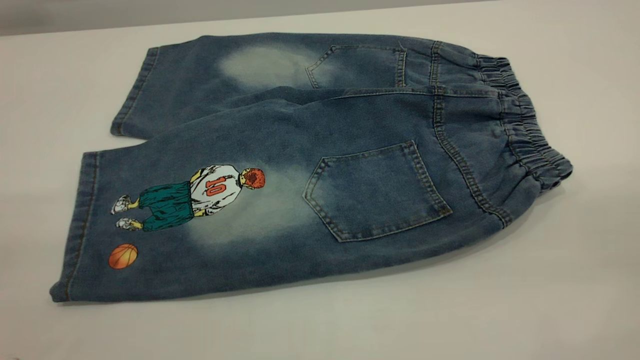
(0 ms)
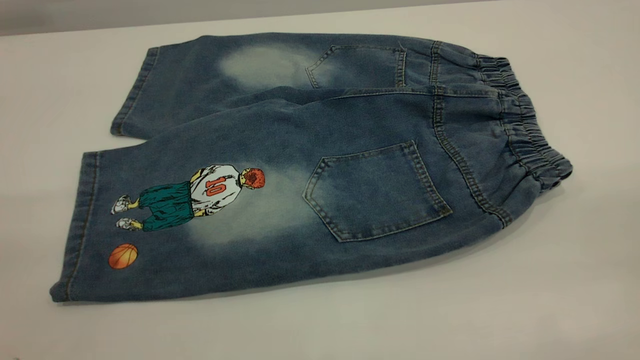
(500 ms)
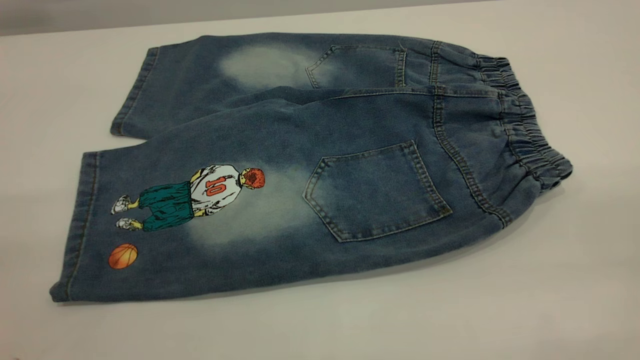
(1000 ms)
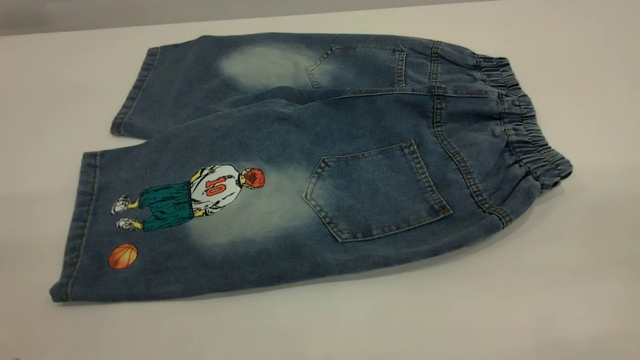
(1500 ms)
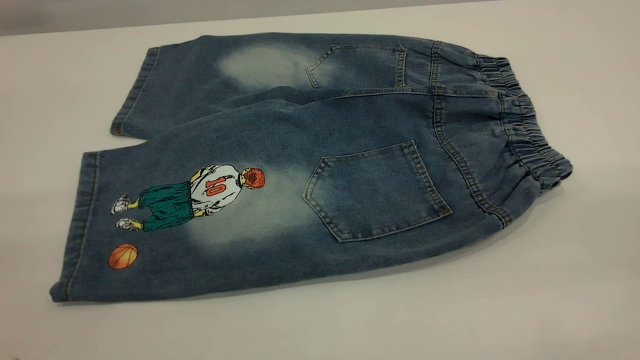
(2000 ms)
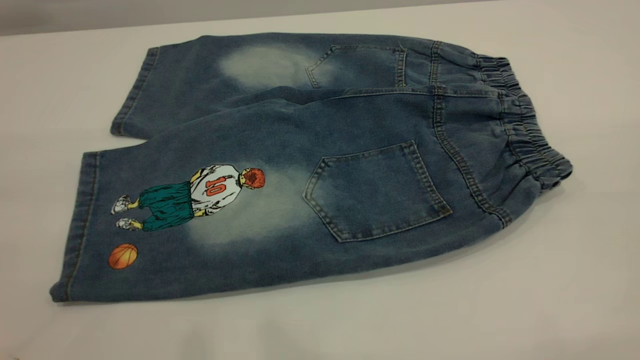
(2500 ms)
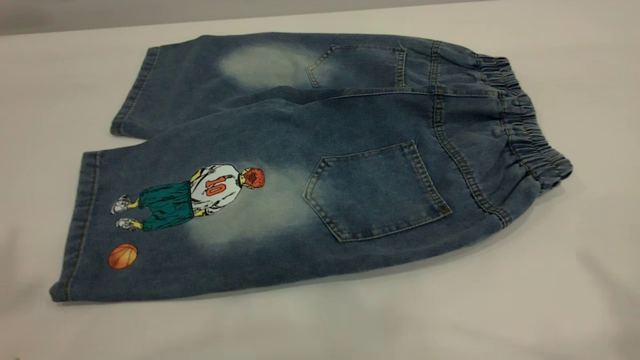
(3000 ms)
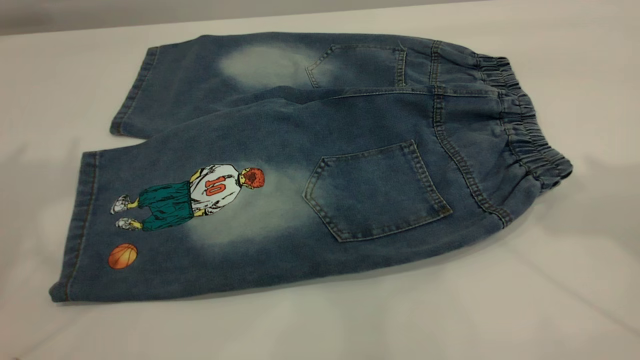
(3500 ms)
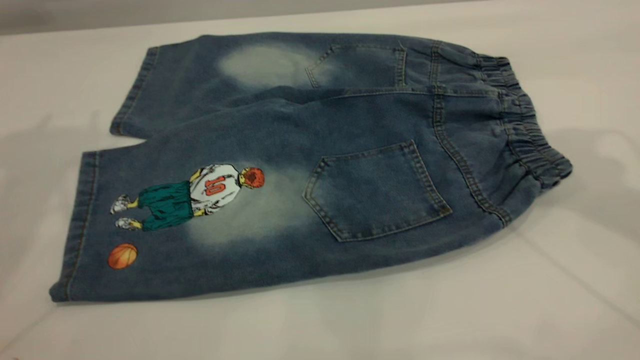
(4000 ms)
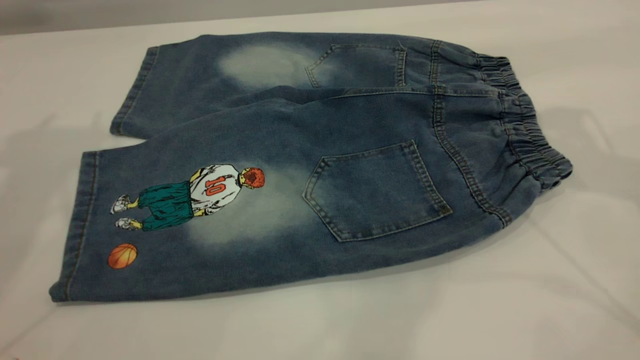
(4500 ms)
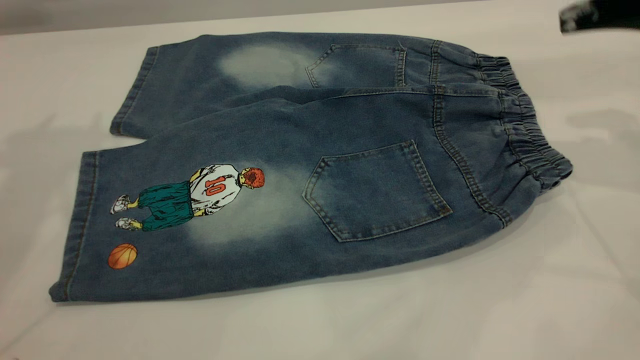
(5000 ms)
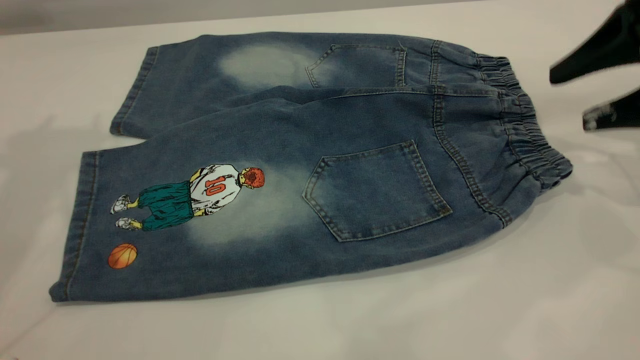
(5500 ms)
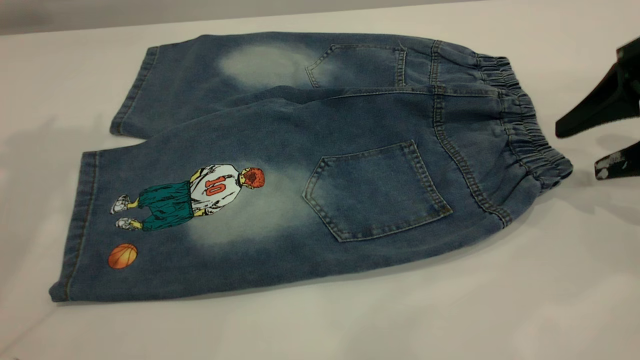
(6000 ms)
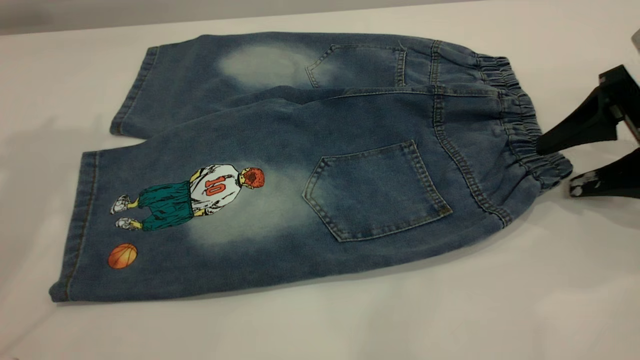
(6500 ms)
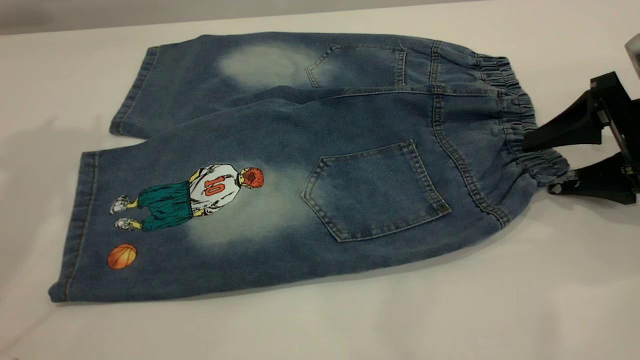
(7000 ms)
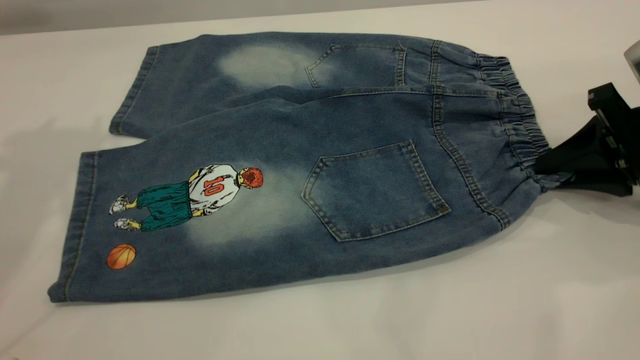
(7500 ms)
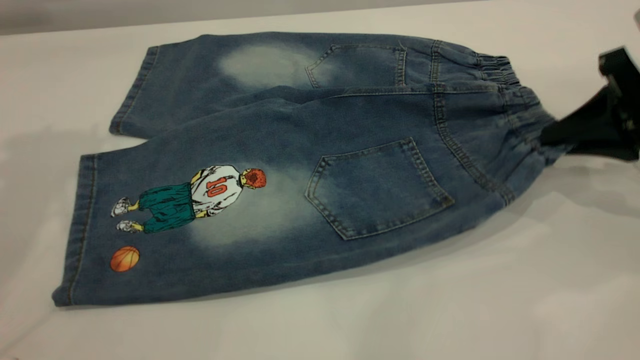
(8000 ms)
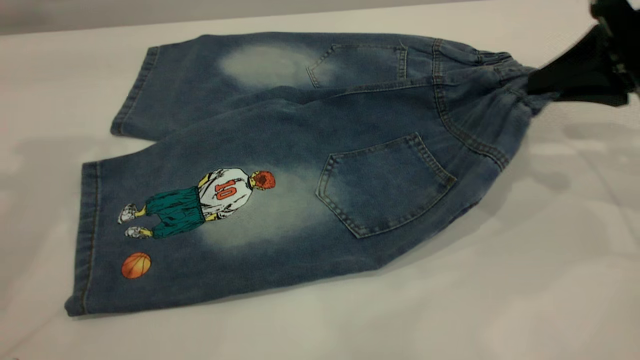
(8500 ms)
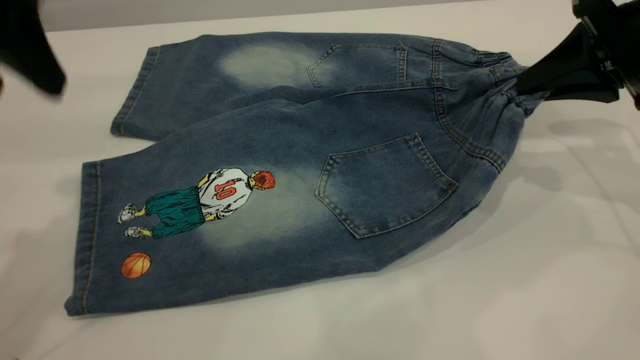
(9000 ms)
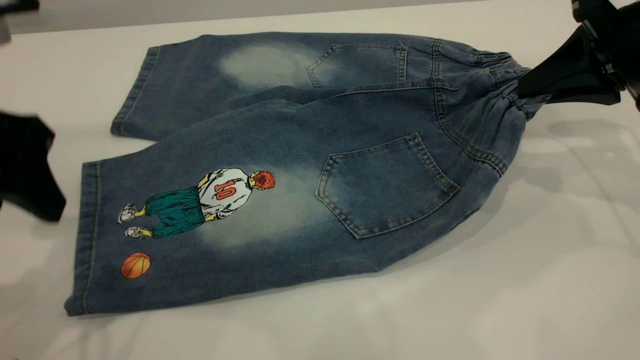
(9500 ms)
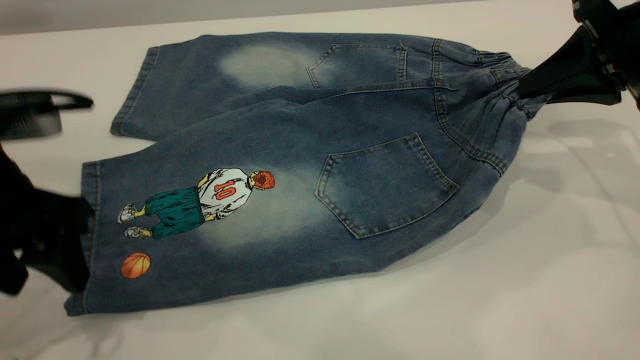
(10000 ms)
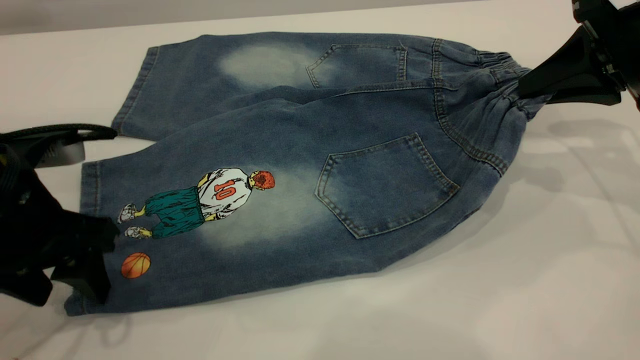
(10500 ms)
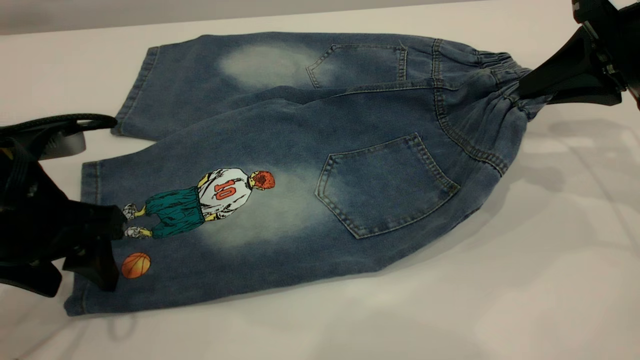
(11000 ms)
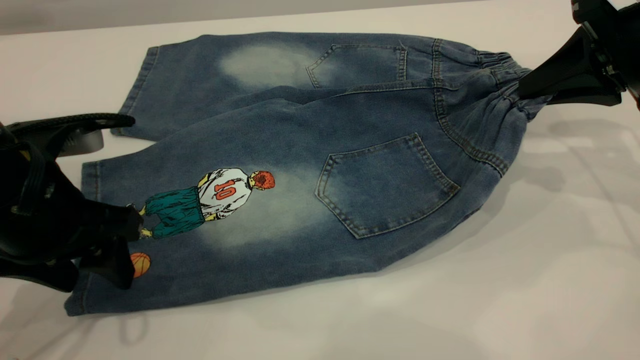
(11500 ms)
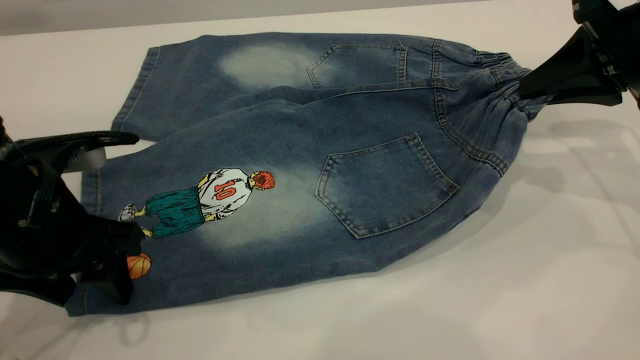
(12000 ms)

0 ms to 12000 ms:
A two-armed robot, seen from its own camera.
0 ms to 2000 ms: Both grippers stay put.
4000 ms to 6000 ms: The right gripper heads downward and to the right, covering some 20 cm.
6000 ms to 8000 ms: The right gripper closes.
8000 ms to 10000 ms: The left gripper heads downward and backward, covering roughly 25 cm. Meanwhile the right gripper moves roughly 5 cm.
10000 ms to 12000 ms: The grippers stay close to where they were, moving slightly.

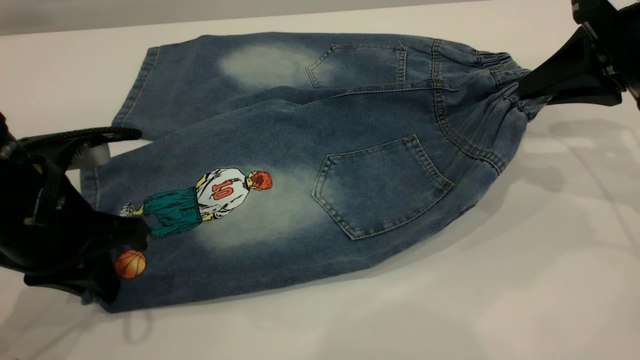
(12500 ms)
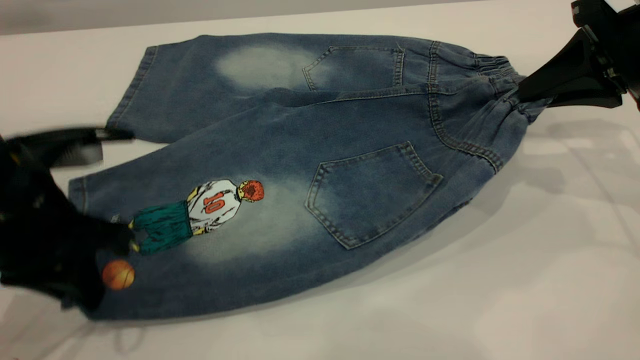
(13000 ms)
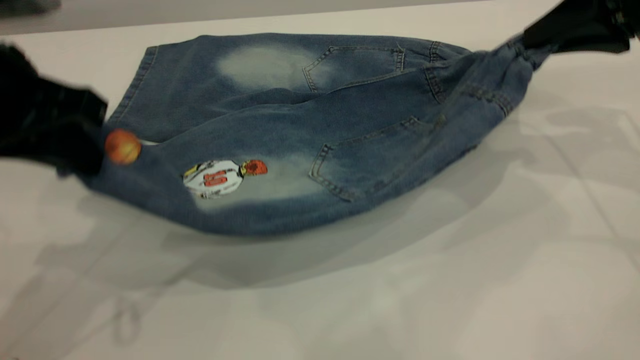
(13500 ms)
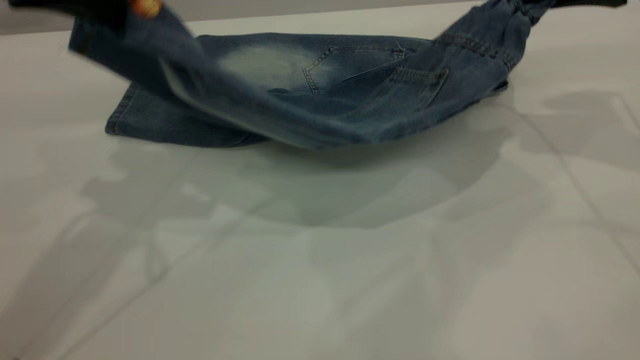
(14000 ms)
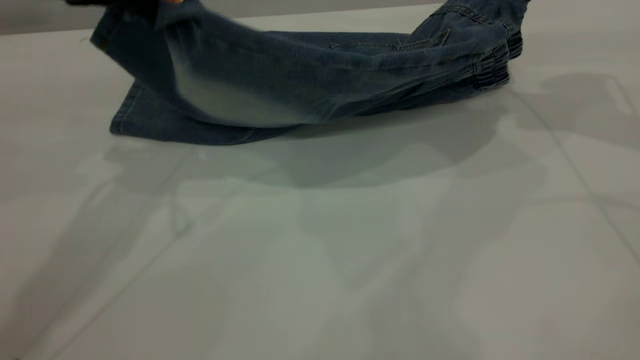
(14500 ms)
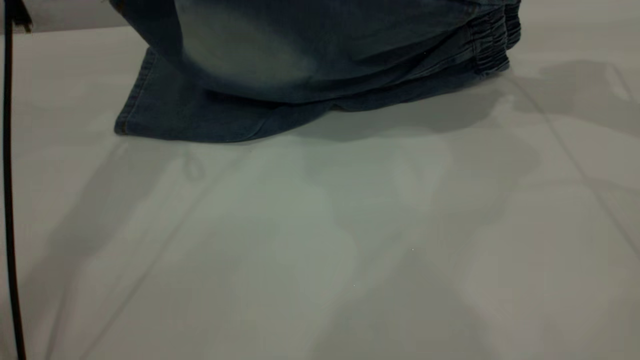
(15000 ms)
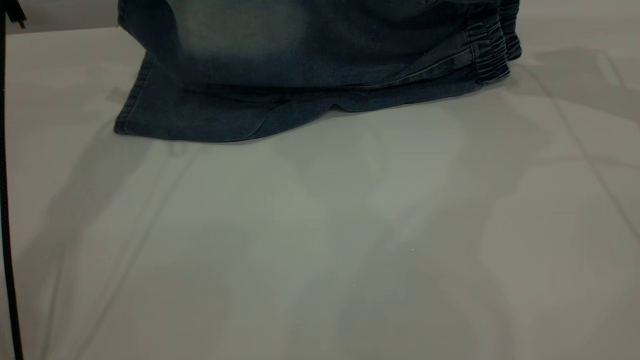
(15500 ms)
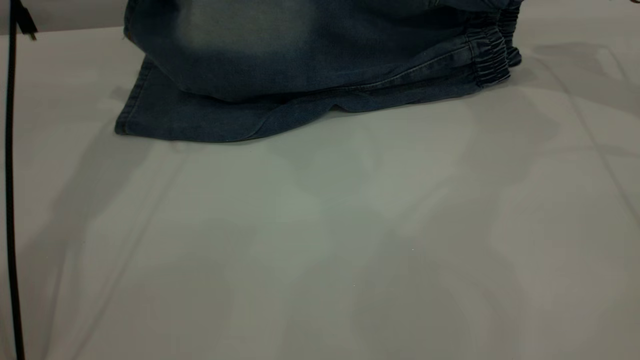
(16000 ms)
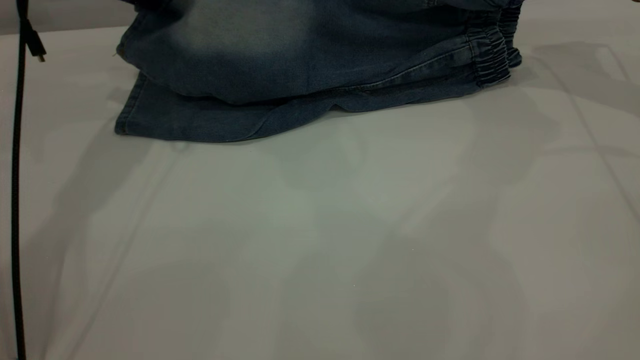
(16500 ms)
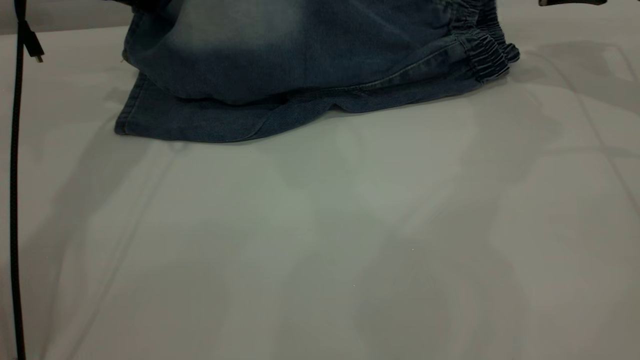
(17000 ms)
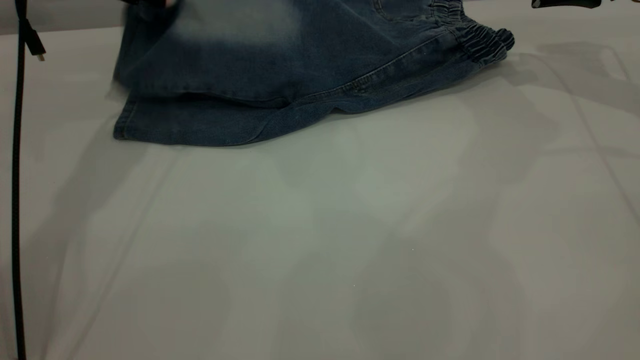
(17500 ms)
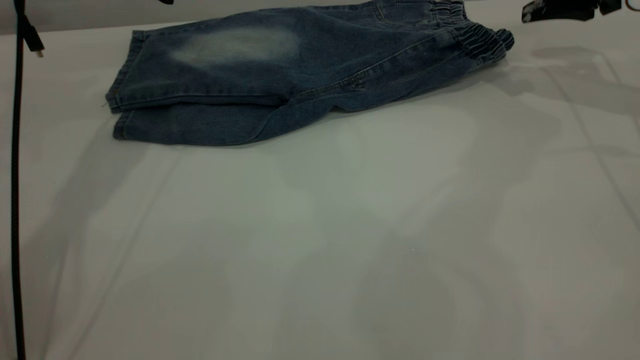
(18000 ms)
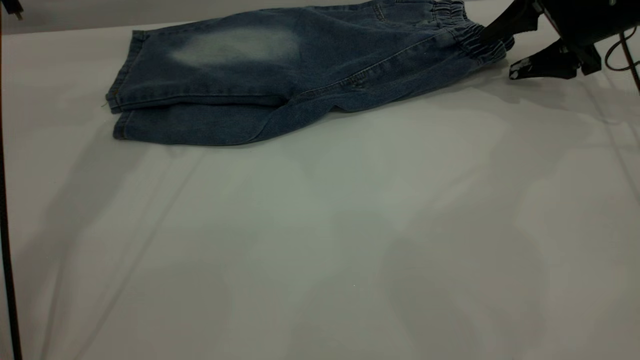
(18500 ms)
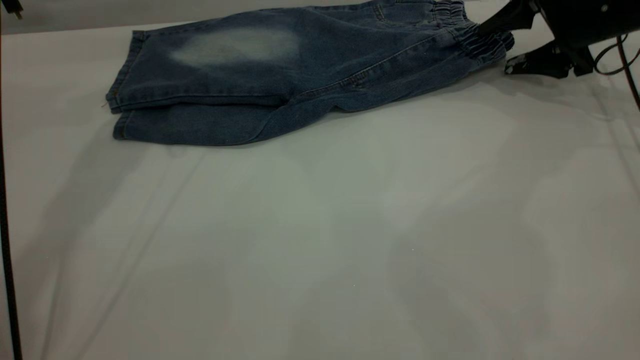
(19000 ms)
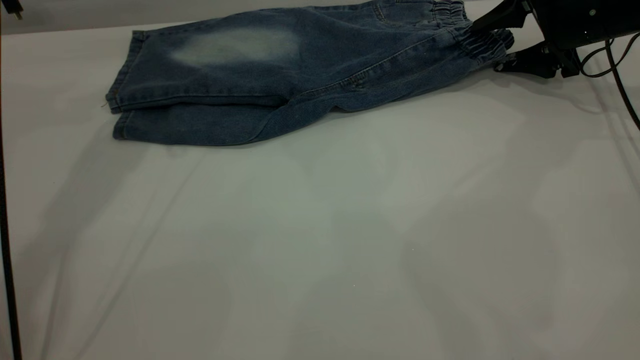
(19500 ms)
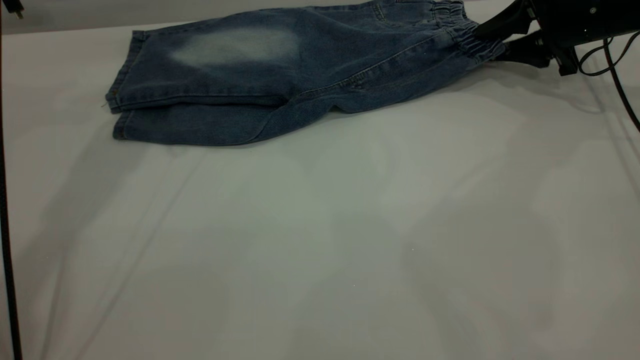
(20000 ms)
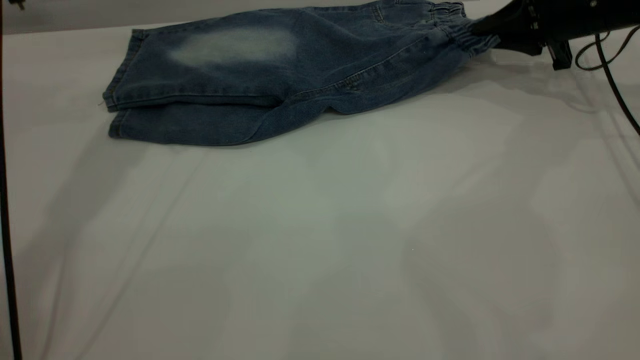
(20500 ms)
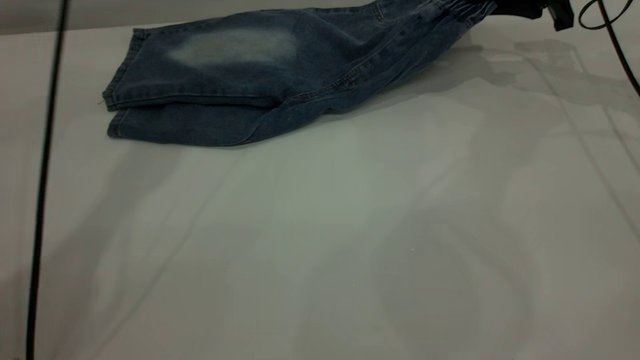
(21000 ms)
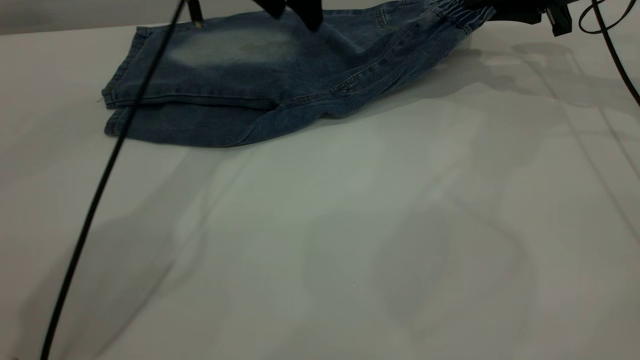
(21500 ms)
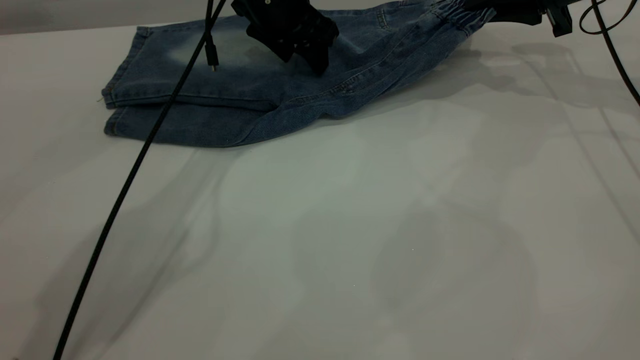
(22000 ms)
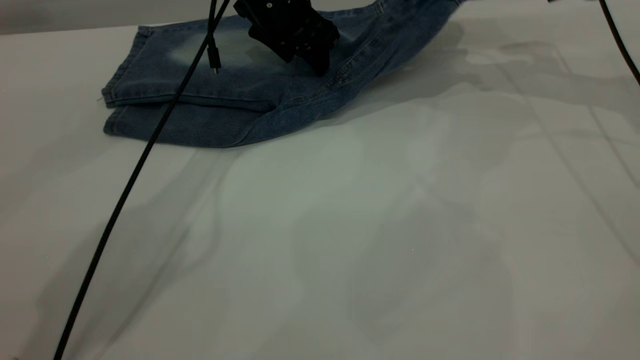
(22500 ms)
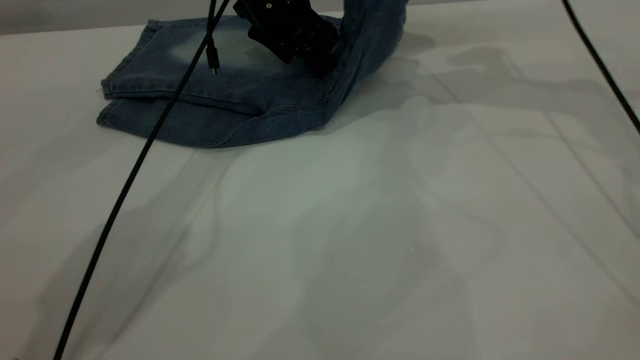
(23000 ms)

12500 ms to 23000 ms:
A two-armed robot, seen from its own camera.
Step, 12500 ms to 17500 ms: Fold the bottom of the pants upward.
12500 ms to 14500 ms: The left gripper moves upward and forward, approximately 20 cm, while the right gripper heads forward and upward, covering approximately 10 cm.
14500 ms to 16500 ms: The right gripper is displaced forward by some 5 cm, while the left gripper shifts about 10 cm forward.
16500 ms to 19000 ms: The left gripper moves approximately 5 cm, and opens up. Meanwhile the right gripper goes roughly 10 cm downward, and opens its fingers.
19000 ms to 21000 ms: The left gripper is displaced to the right by about 10 cm; the right gripper changes place by about 5 cm, and closes its fingers.
21000 ms to 23000 ms: The right gripper goes some 10 cm to the left and upward, while the left gripper goes about 15 cm downward and to the right.
